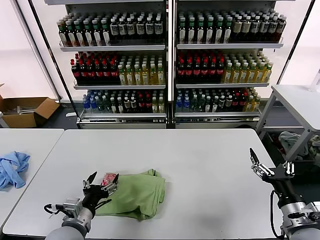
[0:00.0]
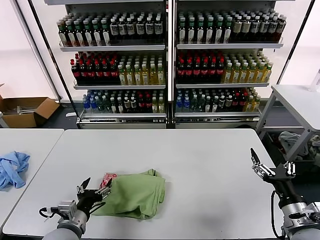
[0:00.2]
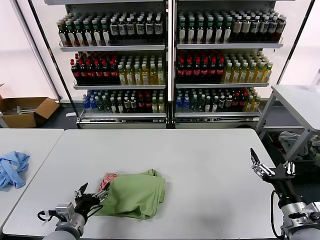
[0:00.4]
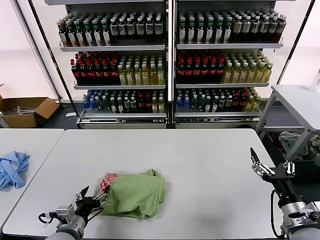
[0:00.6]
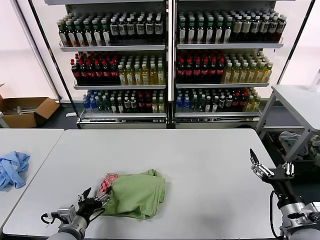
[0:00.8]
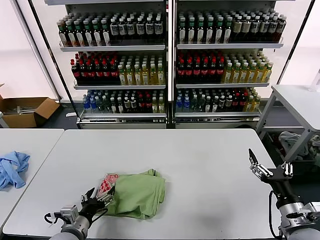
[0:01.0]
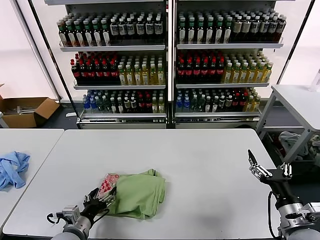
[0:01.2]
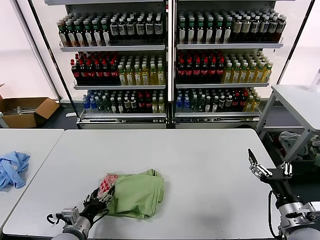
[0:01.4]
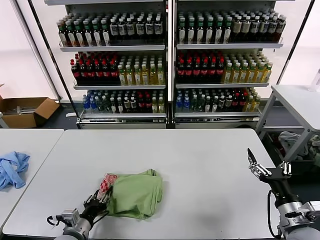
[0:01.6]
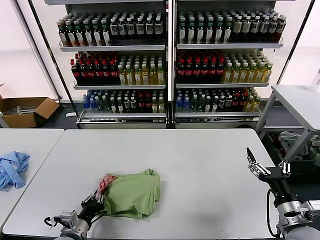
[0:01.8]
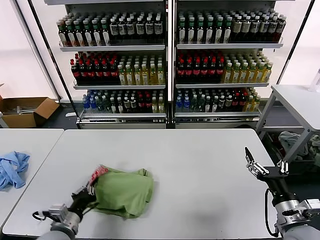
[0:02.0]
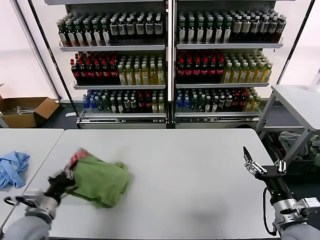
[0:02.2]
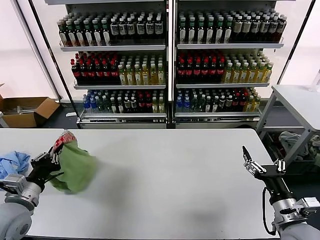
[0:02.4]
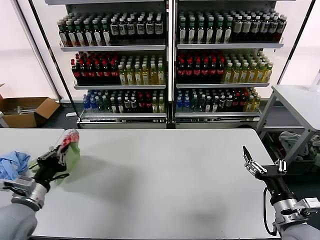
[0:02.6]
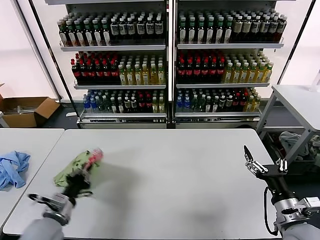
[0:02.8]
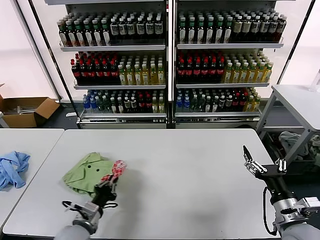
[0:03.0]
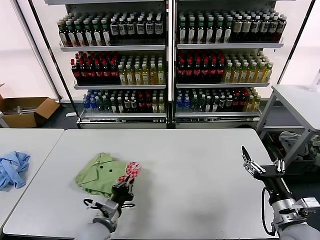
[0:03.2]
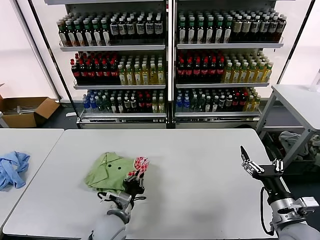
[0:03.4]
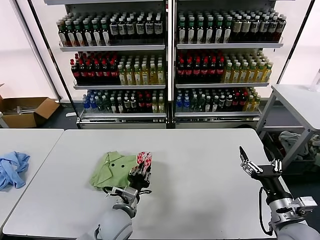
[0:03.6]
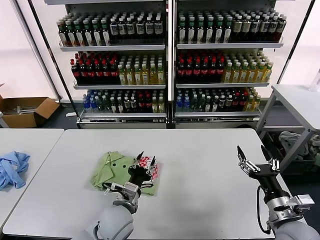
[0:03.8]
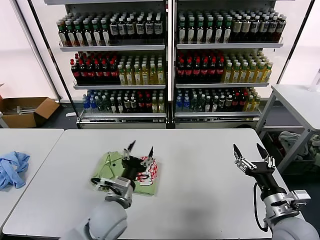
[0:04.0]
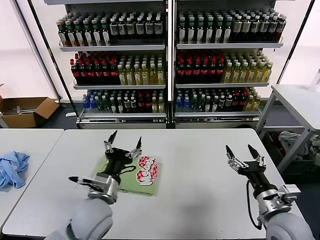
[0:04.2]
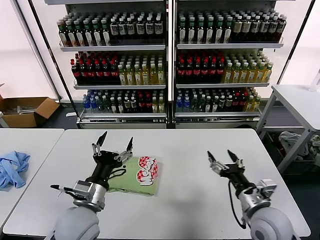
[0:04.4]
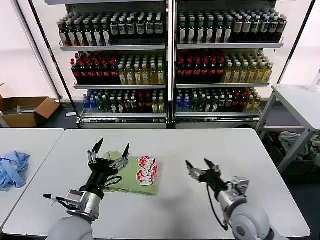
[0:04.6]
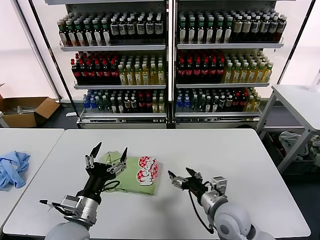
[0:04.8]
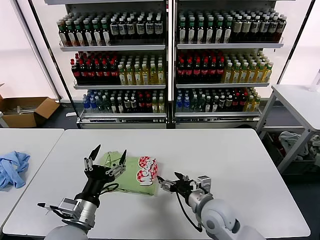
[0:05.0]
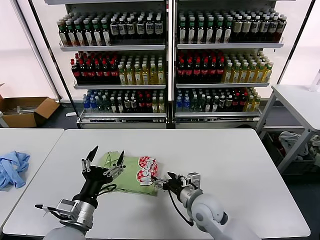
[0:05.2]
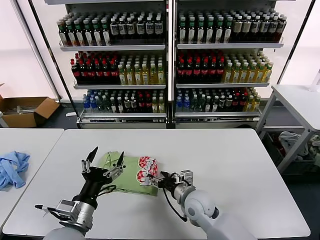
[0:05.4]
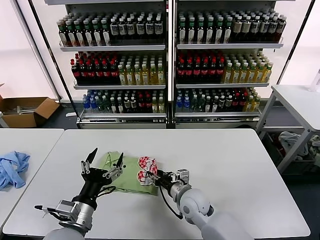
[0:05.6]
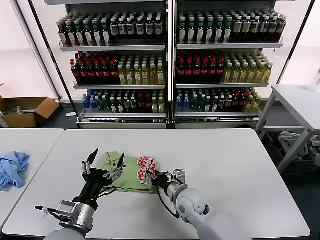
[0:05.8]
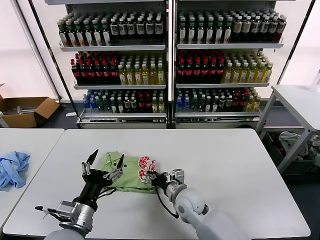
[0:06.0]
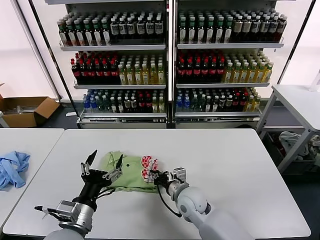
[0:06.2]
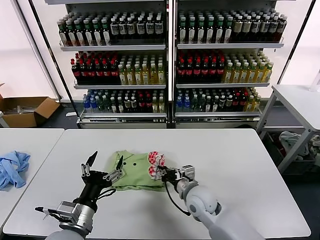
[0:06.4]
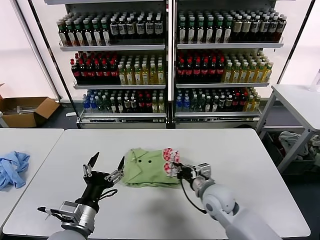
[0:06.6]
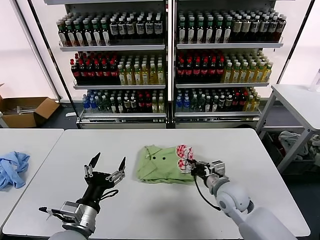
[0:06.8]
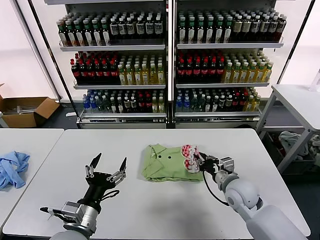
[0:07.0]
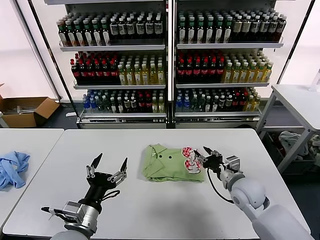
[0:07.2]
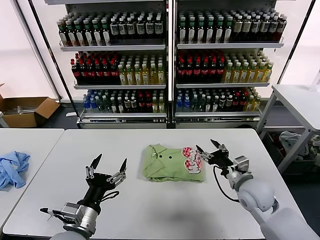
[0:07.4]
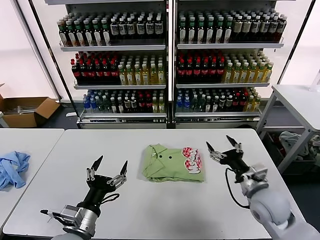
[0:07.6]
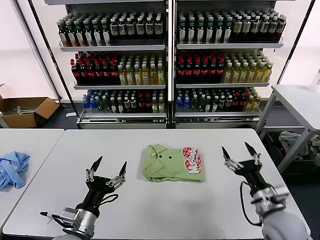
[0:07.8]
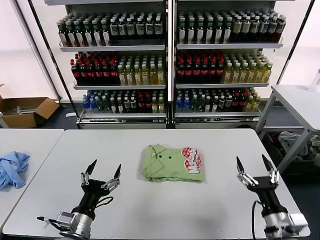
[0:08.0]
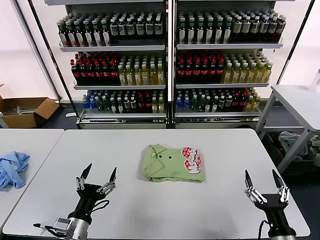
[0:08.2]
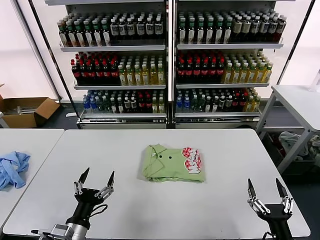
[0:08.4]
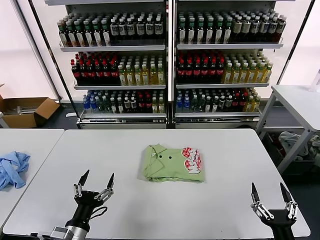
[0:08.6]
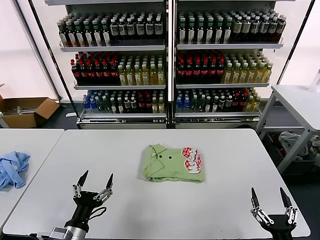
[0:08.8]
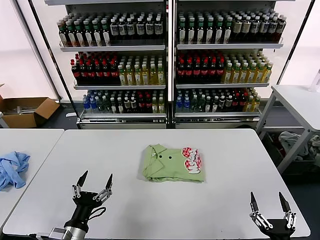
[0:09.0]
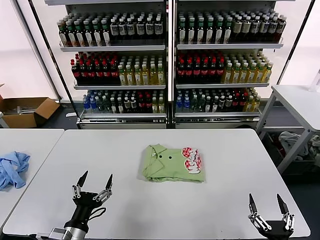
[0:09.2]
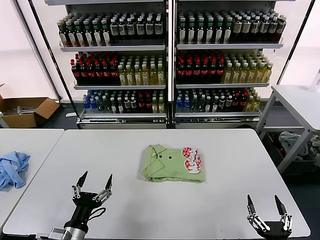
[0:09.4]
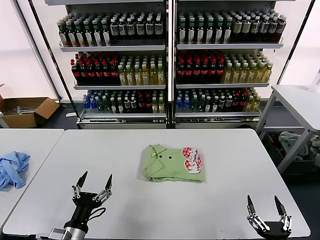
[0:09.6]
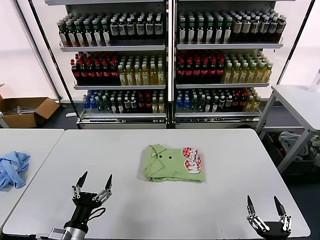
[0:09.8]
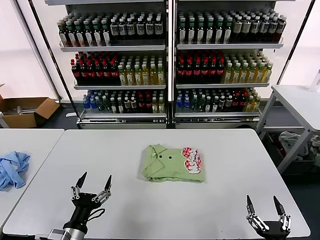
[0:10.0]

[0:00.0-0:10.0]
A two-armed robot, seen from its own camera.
Task of the whole recording: fold and organize the clothes.
Step, 0:00.0 to 0:03.8: Flip the folded clothes over with left gripper.
Step, 0:04.0 to 0:07.0: Drag the clothes to the center of the table.
0:00.0 to 0:01.4: The left gripper shifts approximately 5 cm downward.
0:01.4 to 0:02.8: The left gripper shifts some 10 cm upward and to the left, and closes up.
0:02.8 to 0:04.2: The left gripper travels to the right by some 20 cm, and opens its fingers.
0:04.2 to 0:05.8: The left gripper is displaced backward and to the left by some 10 cm, while the right gripper heads to the left, forward and downward, covering some 25 cm, and closes up.
0:05.8 to 0:07.2: The right gripper heads to the right, covering some 15 cm.
0:07.2 to 0:08.6: The right gripper shifts roughly 25 cm backward, and opens up. Meanwhile the left gripper heads downward, covering about 5 cm.
0:08.6 to 0:10.0: The grippers move only a little.
